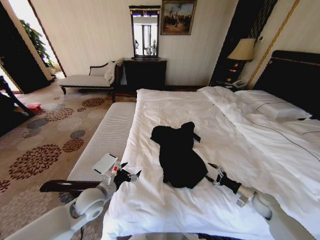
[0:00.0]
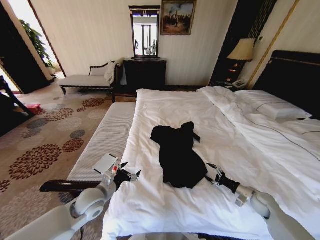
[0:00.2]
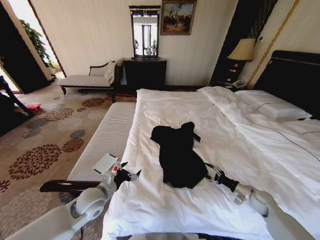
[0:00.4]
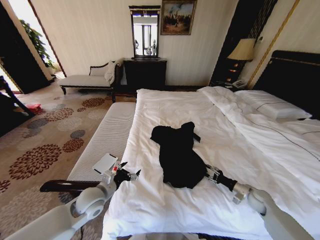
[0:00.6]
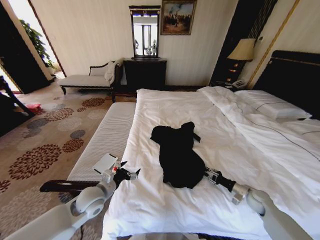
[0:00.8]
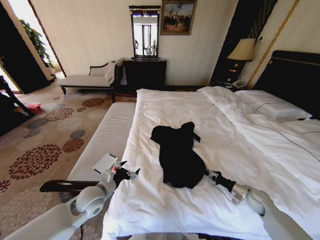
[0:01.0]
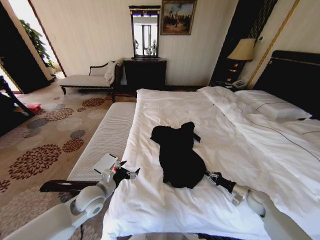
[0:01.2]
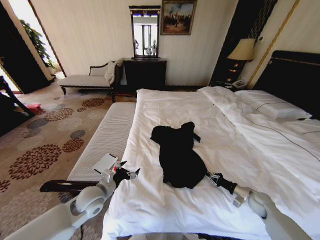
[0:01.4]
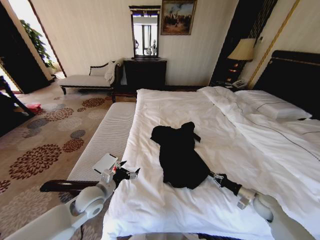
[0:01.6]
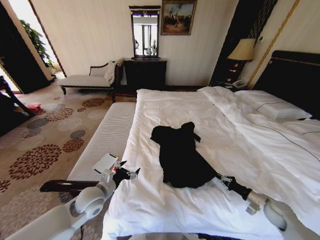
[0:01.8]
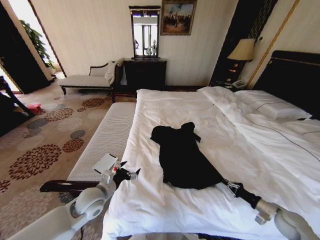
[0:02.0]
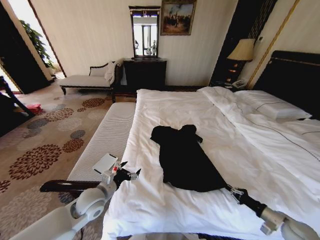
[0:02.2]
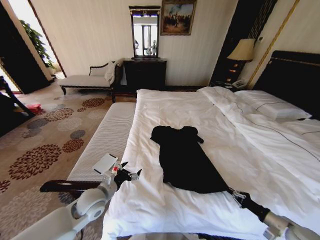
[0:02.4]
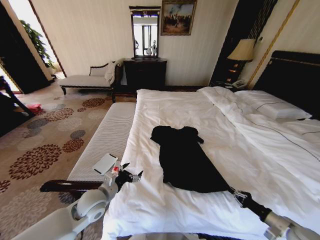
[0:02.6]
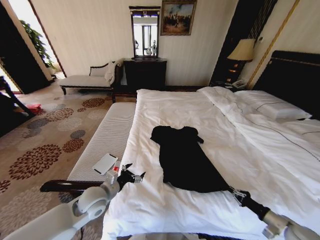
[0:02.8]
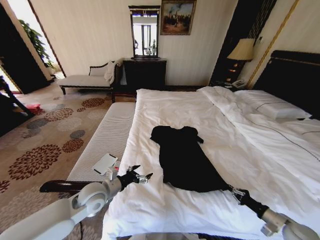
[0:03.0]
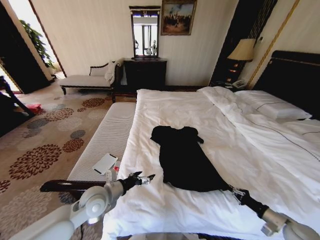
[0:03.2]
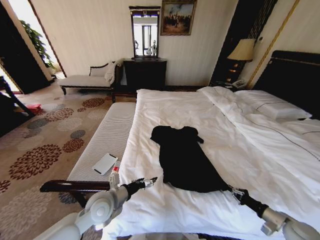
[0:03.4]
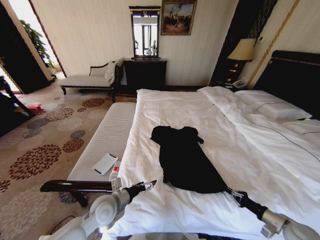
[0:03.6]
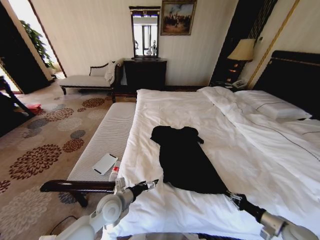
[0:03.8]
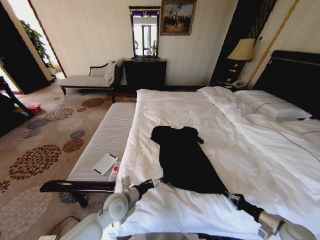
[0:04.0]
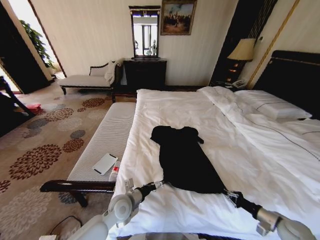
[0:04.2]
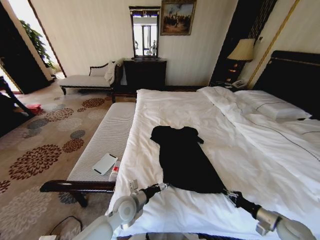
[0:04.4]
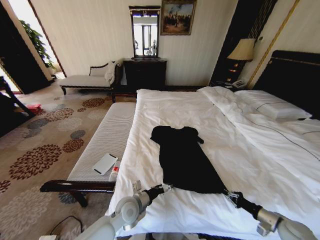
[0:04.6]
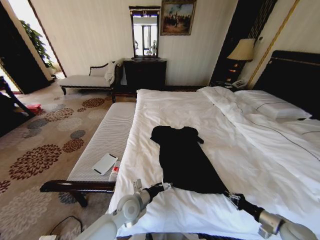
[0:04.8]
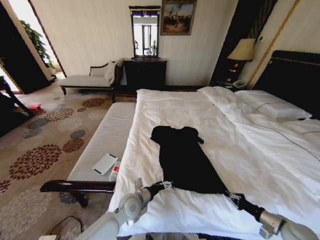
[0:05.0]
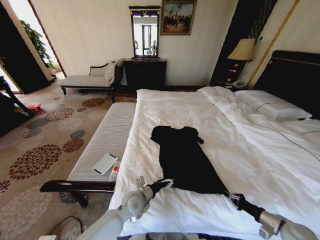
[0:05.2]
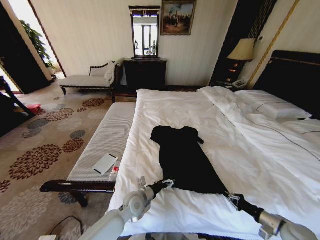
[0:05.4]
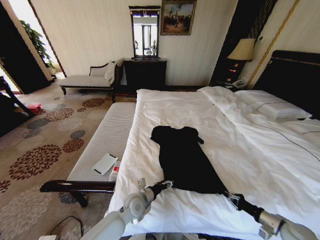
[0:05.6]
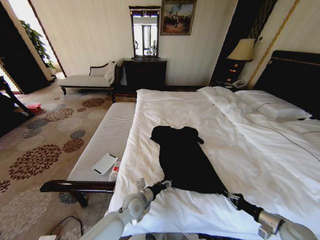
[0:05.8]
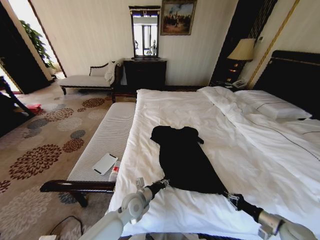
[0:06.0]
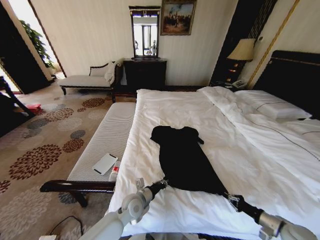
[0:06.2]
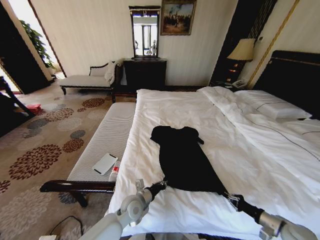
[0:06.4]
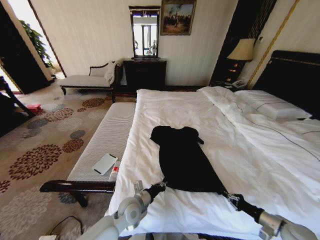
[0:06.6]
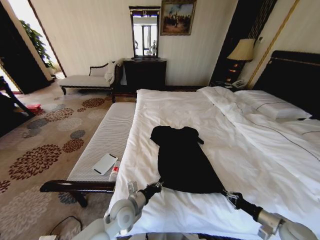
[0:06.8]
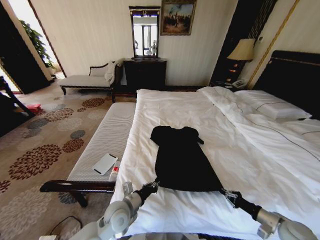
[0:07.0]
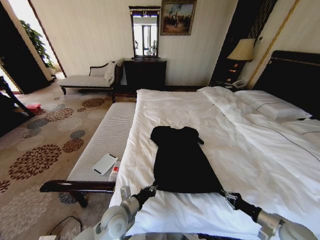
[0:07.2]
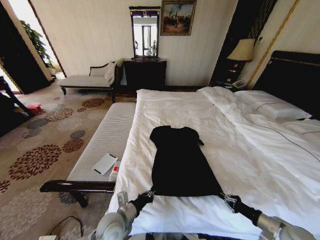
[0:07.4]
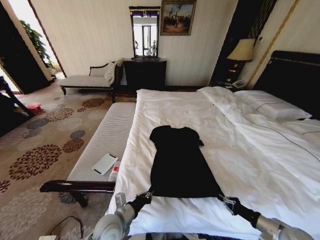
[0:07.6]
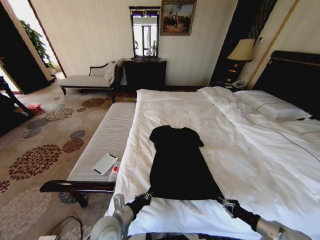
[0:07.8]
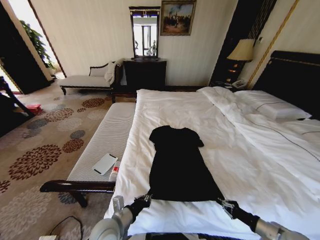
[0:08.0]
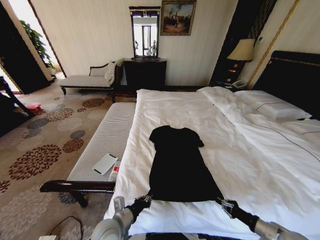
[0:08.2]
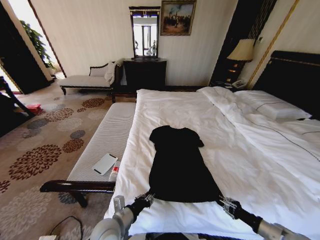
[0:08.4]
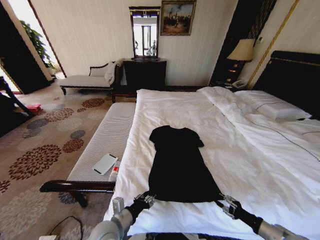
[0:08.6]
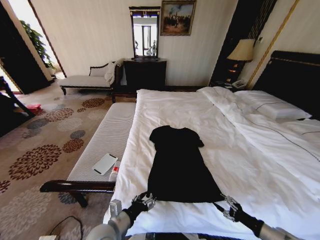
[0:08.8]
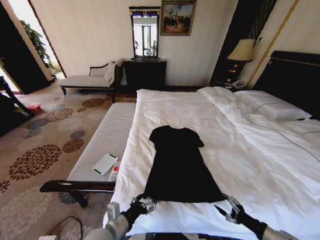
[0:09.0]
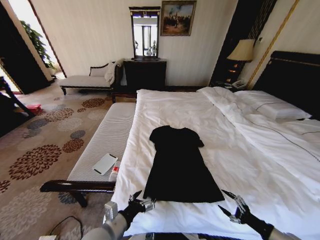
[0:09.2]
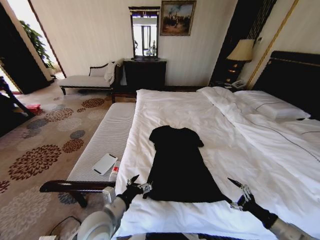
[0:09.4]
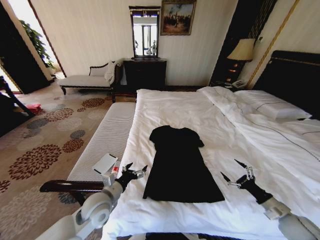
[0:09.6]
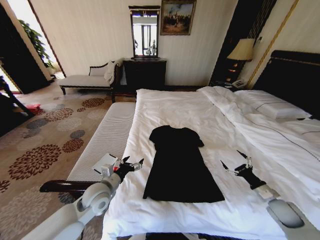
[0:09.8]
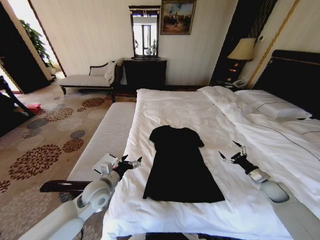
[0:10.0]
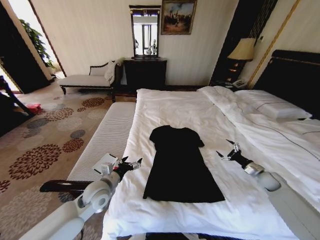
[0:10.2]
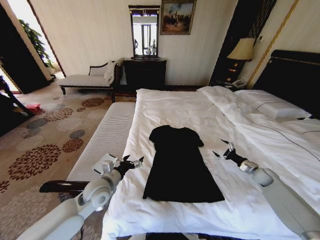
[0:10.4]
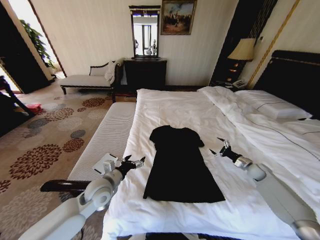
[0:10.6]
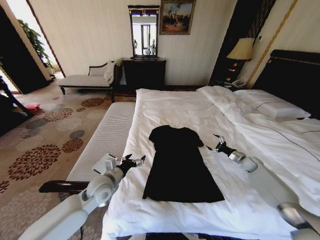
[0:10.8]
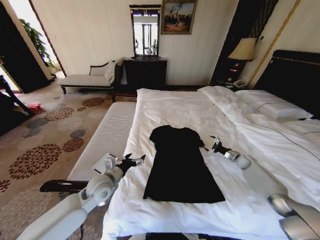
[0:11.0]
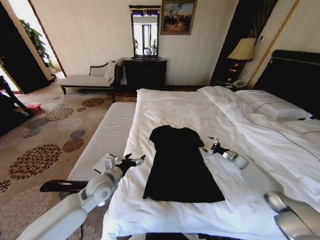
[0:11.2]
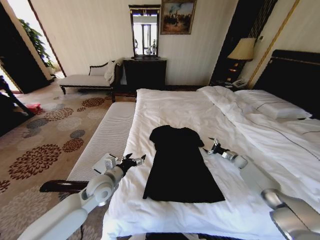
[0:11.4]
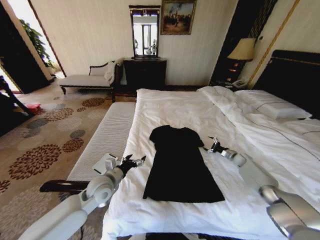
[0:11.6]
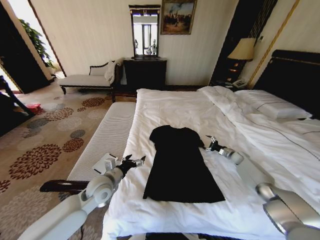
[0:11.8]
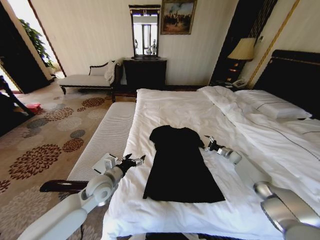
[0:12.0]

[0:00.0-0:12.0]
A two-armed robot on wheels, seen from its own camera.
Task of the whole recording: Fold the clothes on the bed.
0:00.0 to 0:01.6: The right gripper closes its fingers.
0:01.6 to 0:03.0: The right gripper travels backward by some 10 cm.
0:03.0 to 0:04.4: The left gripper heads to the right and downward, covering approximately 15 cm.
0:04.4 to 0:06.0: The left gripper closes up.
0:06.0 to 0:07.6: The left gripper heads backward and to the left, covering about 10 cm.
0:07.6 to 0:09.0: The right gripper opens. Meanwhile the left gripper changes place by approximately 5 cm, and opens its fingers.
0:09.0 to 0:10.4: The left gripper moves forward, approximately 15 cm, while the right gripper goes about 30 cm forward.
0:10.4 to 0:12.0: The right gripper heads forward, covering some 15 cm.

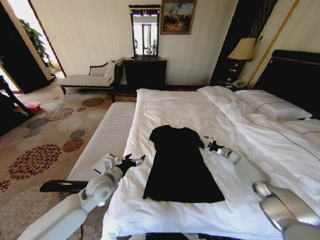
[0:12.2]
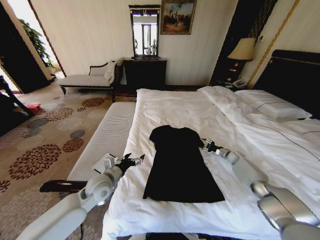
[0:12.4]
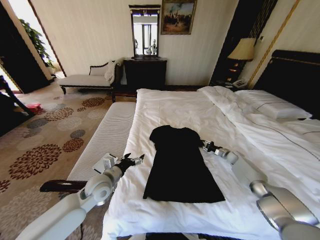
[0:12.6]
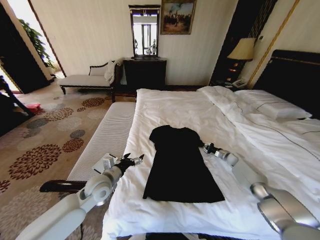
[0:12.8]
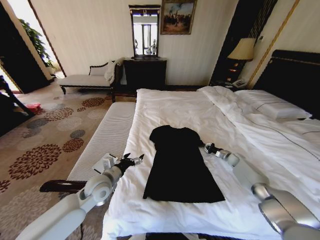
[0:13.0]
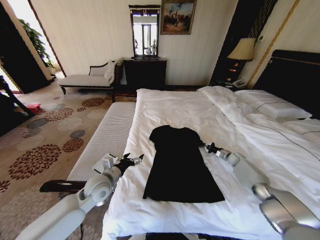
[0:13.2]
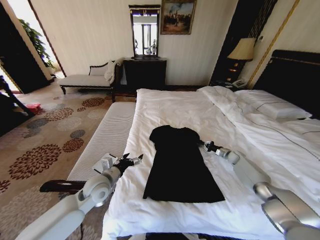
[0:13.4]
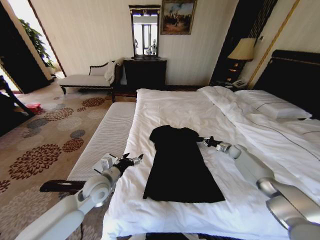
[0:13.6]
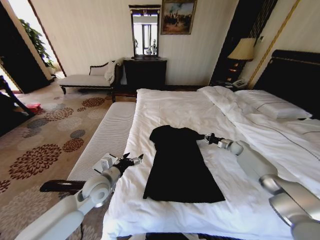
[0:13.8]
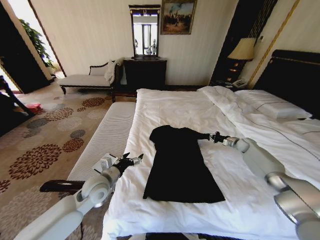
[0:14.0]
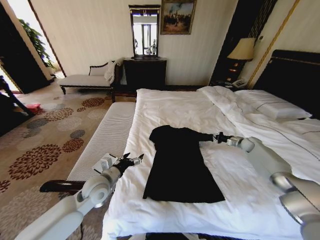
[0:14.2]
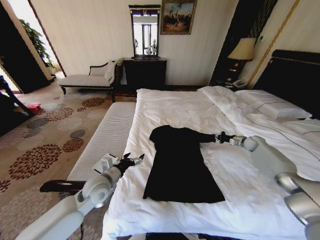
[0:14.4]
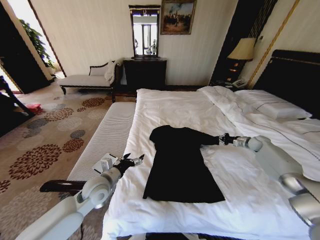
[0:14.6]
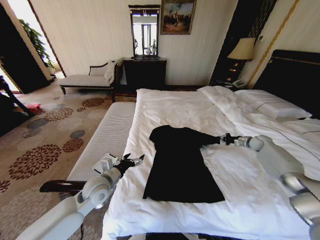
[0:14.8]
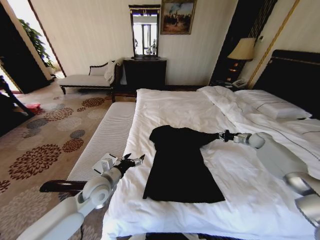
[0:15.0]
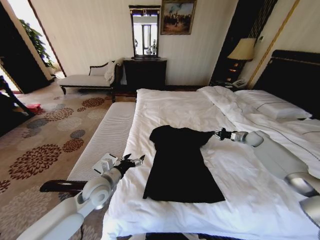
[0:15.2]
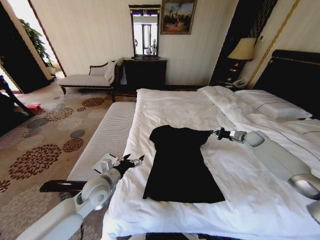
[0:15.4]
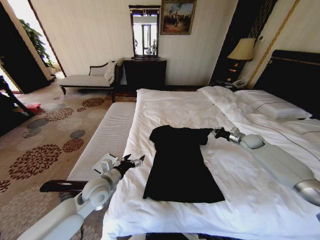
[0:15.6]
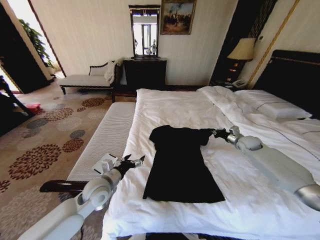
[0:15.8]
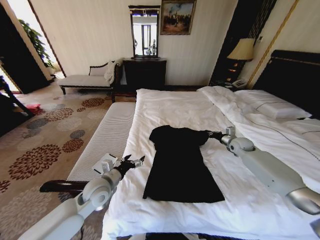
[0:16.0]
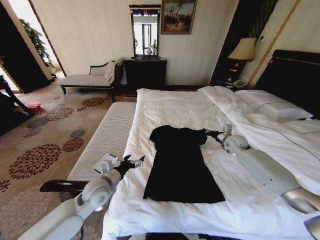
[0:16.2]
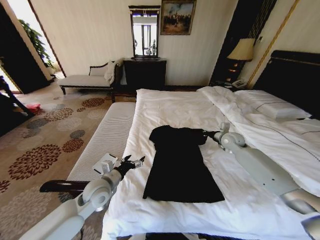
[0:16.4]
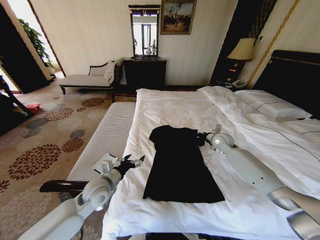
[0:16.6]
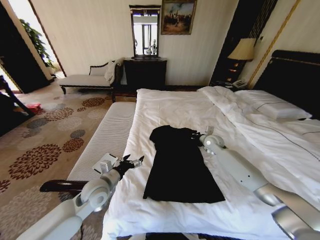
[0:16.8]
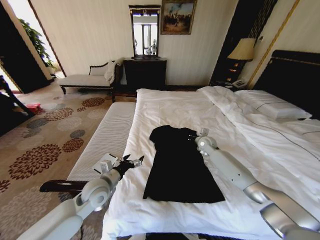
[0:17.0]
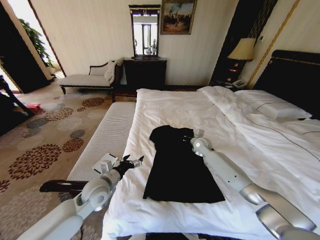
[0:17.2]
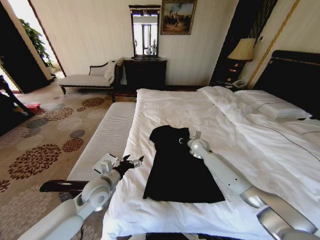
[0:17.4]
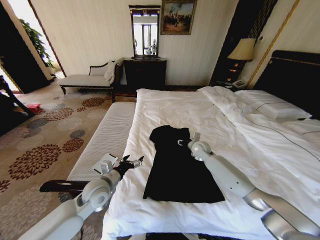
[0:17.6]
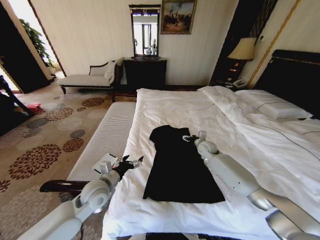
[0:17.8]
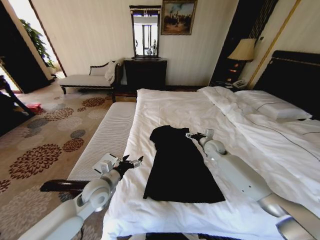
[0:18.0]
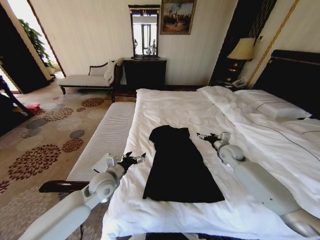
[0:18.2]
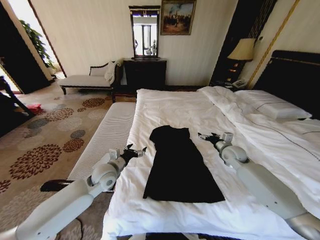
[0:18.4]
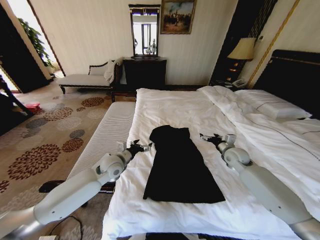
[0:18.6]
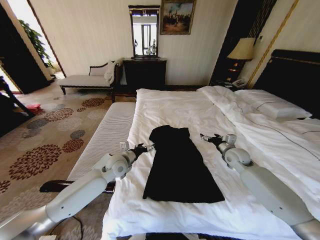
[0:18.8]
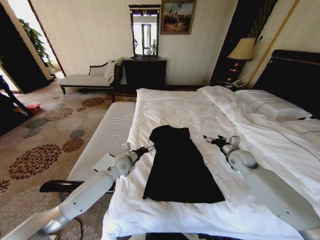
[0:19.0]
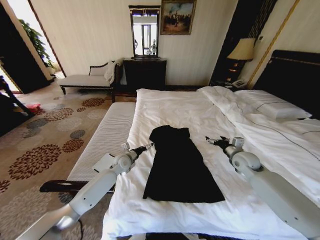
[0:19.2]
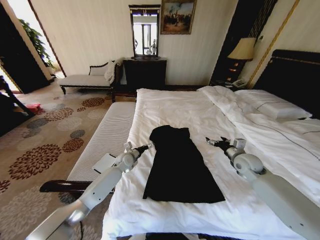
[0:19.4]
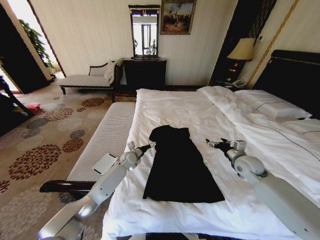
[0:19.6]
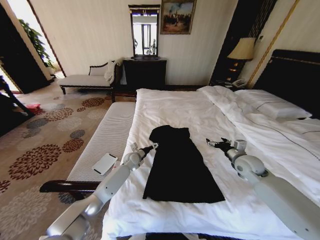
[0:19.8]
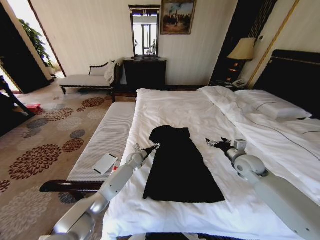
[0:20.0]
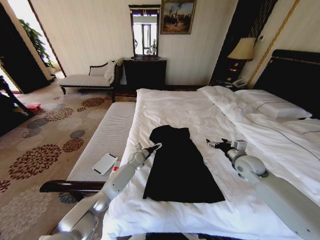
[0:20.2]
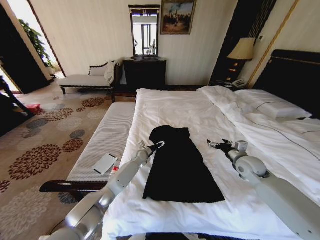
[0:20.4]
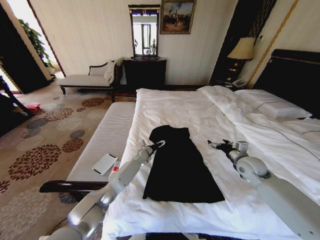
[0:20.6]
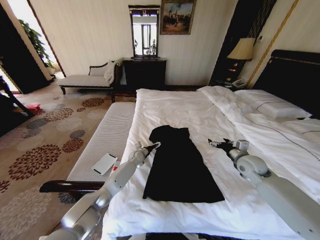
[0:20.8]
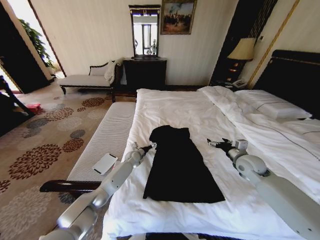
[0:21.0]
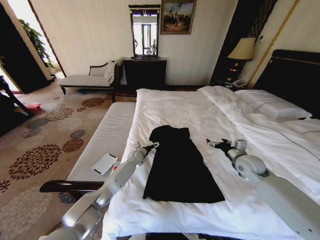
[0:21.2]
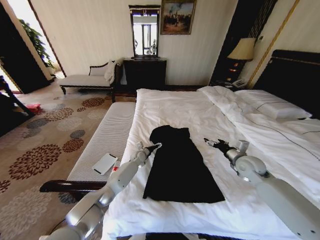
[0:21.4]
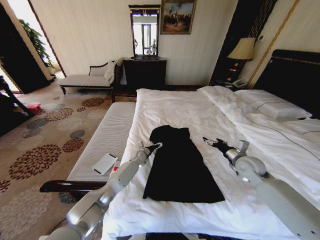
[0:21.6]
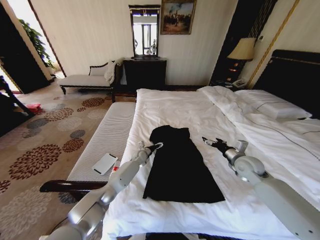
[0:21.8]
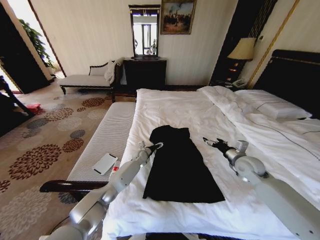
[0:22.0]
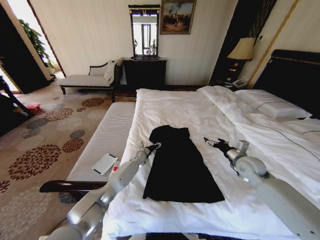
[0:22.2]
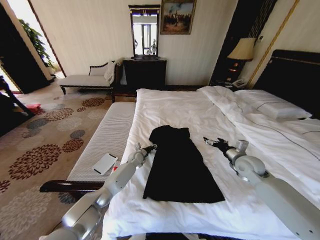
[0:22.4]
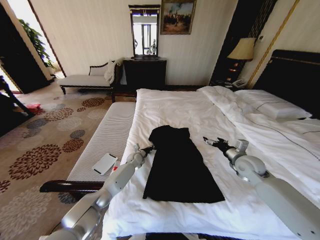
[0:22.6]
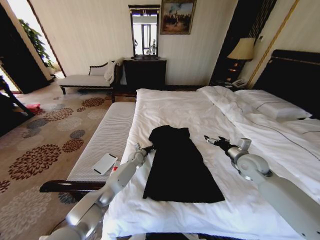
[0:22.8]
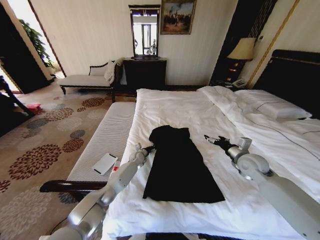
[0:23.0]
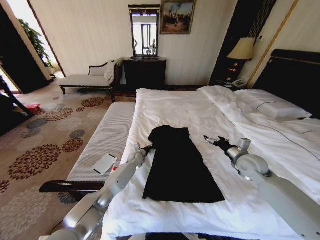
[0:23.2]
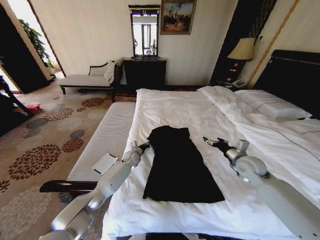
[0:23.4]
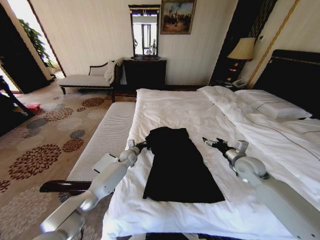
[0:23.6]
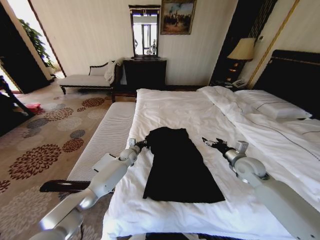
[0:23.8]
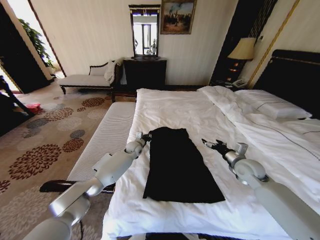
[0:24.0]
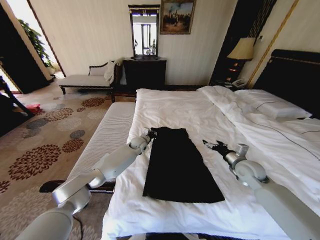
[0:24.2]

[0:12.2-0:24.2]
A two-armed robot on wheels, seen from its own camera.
Task of the whole recording: Fold the clothes on the bed.
0:12.2 to 0:13.8: The right gripper is displaced upward by approximately 5 cm, and closes its fingers.
0:13.8 to 0:15.2: The right gripper shifts about 10 cm upward.
0:15.2 to 0:16.6: The right gripper goes about 20 cm to the left.
0:16.6 to 0:18.2: The right gripper goes about 5 cm backward, travels to the left and back again, roughly 10 cm each way, and opens.
0:18.2 to 0:19.8: The right gripper moves backward, approximately 10 cm, while the left gripper moves forward and downward, approximately 25 cm.
0:19.8 to 0:21.2: The grippers make only small movements.
0:21.2 to 0:22.6: The left gripper closes up.
0:22.6 to 0:24.2: The left gripper shifts approximately 10 cm upward.
